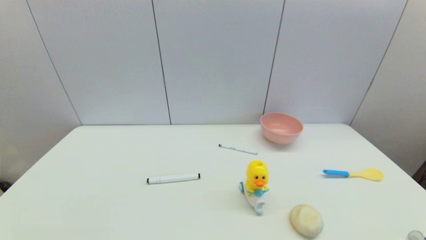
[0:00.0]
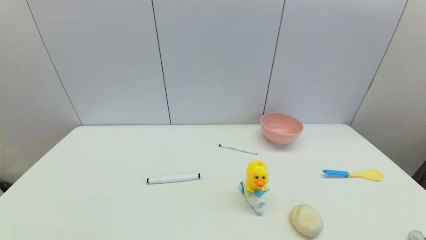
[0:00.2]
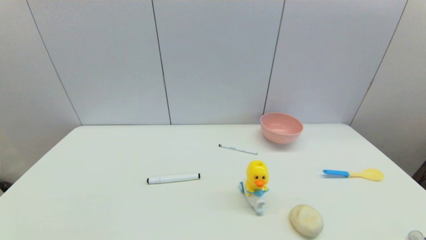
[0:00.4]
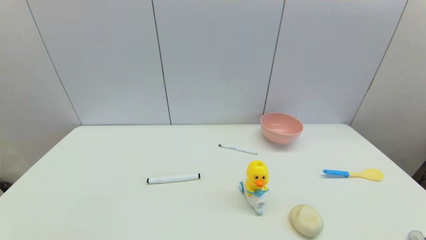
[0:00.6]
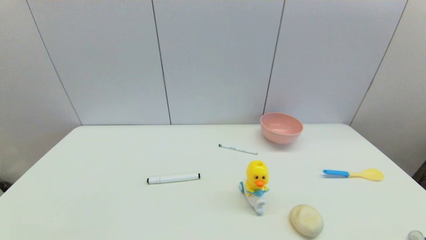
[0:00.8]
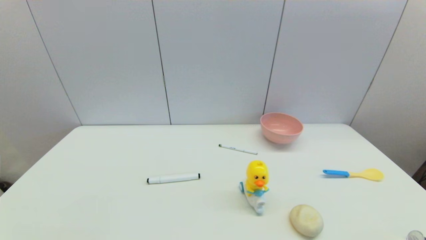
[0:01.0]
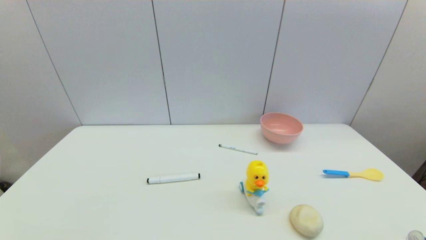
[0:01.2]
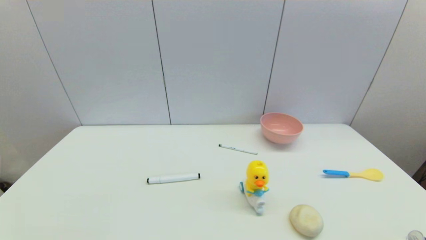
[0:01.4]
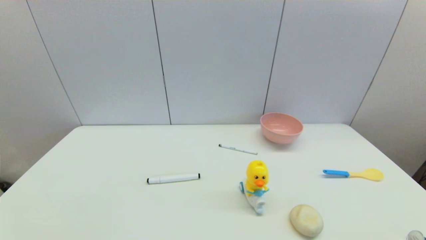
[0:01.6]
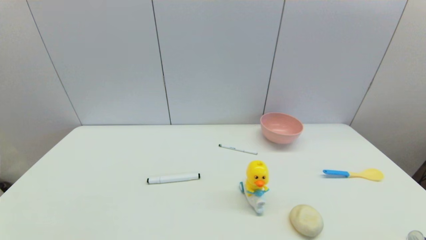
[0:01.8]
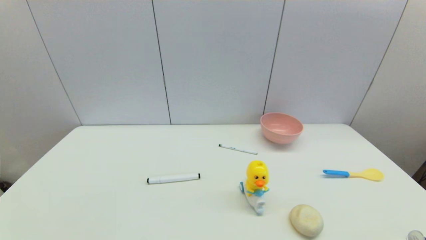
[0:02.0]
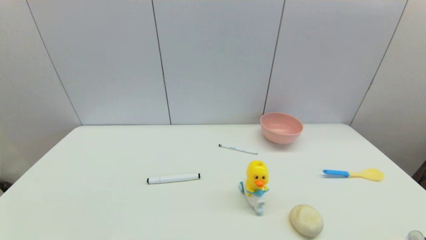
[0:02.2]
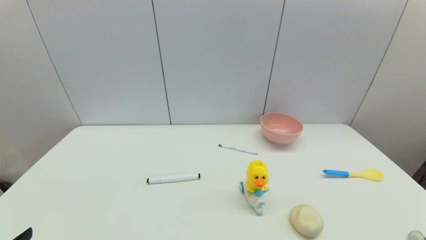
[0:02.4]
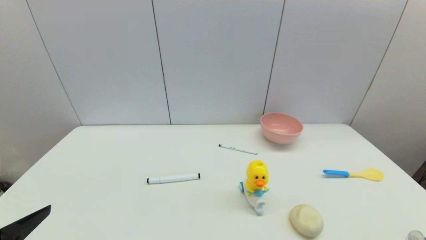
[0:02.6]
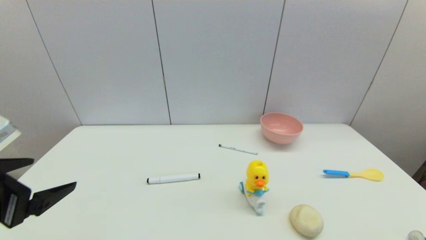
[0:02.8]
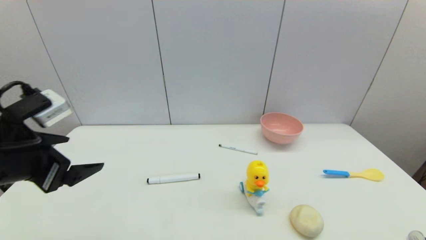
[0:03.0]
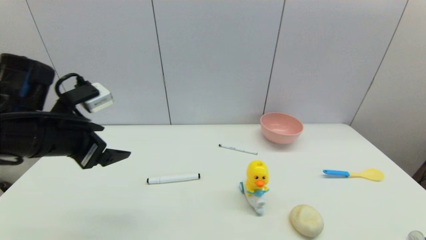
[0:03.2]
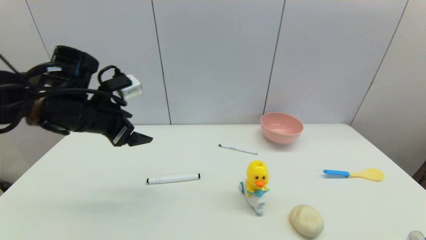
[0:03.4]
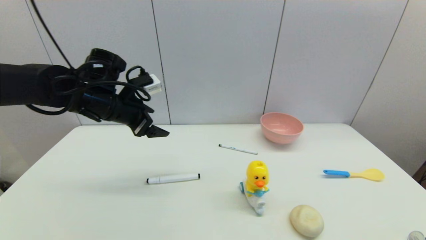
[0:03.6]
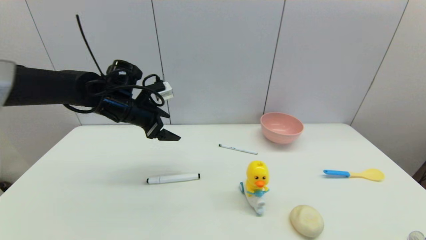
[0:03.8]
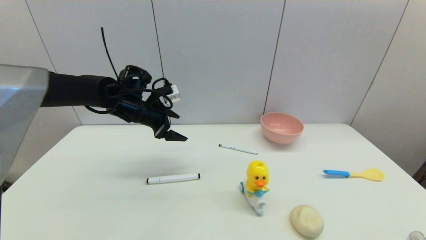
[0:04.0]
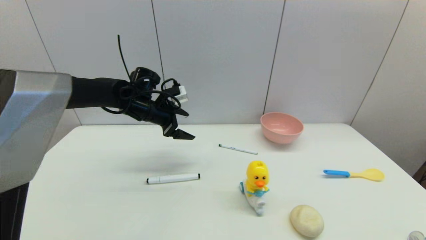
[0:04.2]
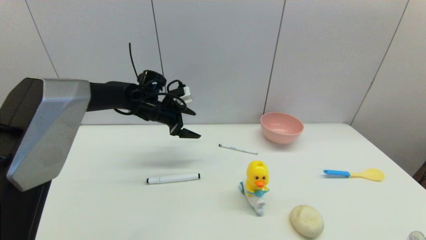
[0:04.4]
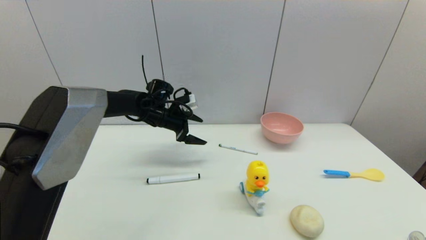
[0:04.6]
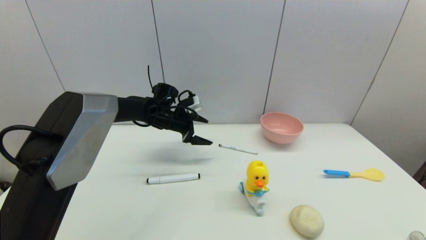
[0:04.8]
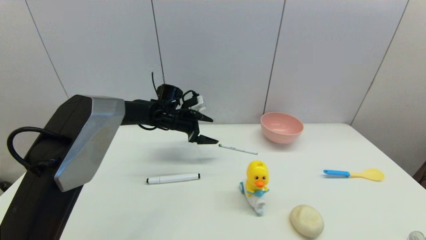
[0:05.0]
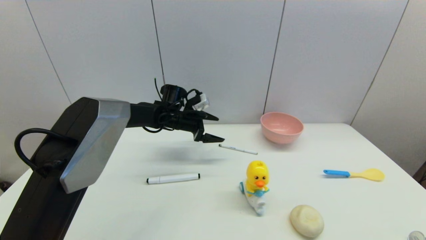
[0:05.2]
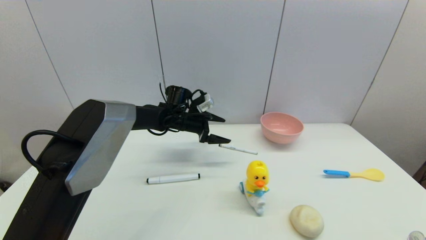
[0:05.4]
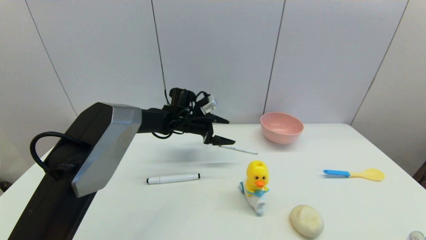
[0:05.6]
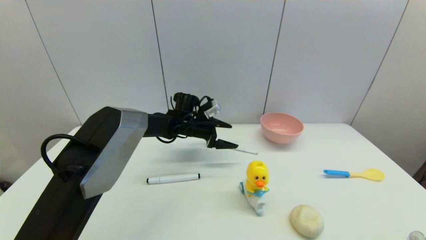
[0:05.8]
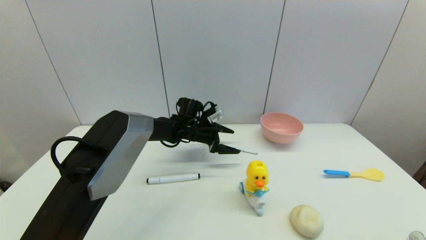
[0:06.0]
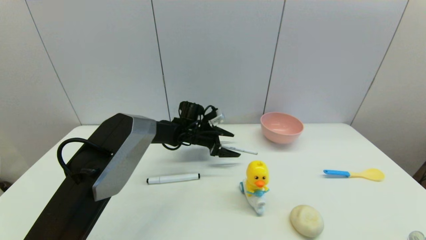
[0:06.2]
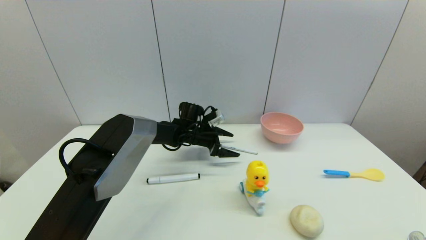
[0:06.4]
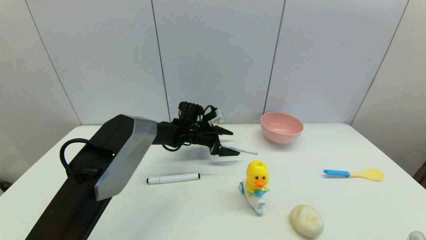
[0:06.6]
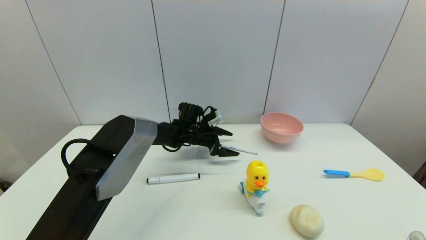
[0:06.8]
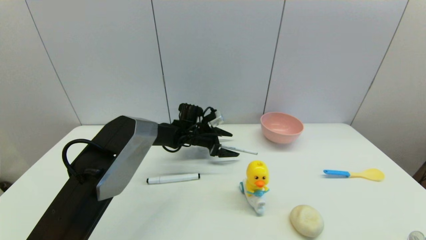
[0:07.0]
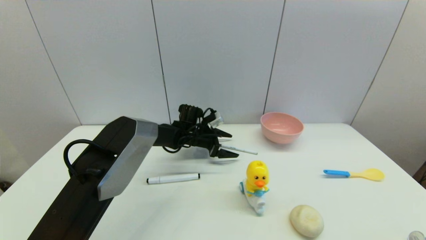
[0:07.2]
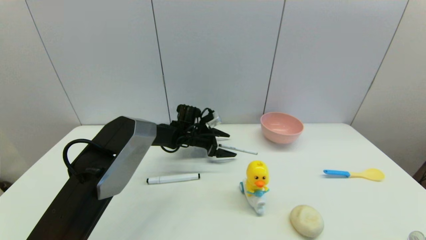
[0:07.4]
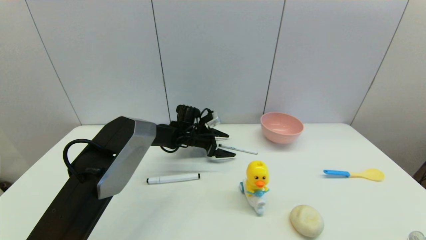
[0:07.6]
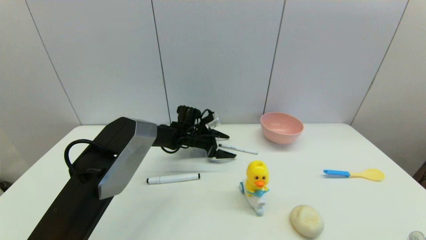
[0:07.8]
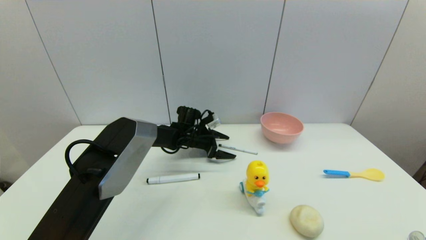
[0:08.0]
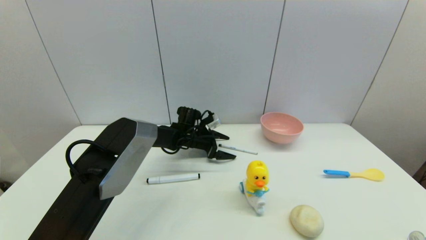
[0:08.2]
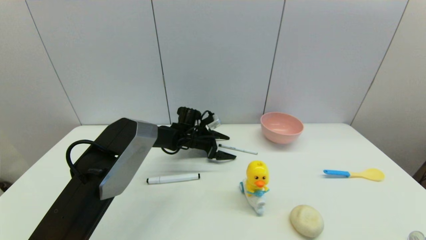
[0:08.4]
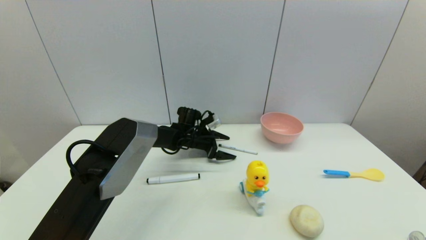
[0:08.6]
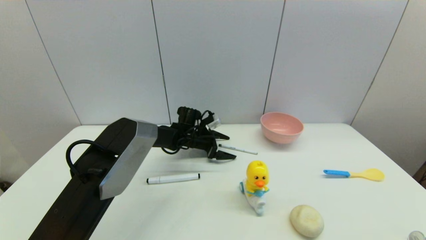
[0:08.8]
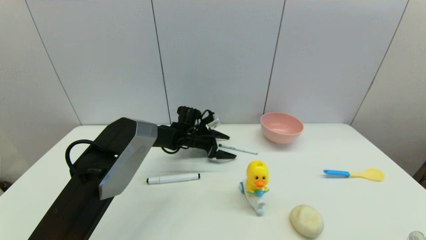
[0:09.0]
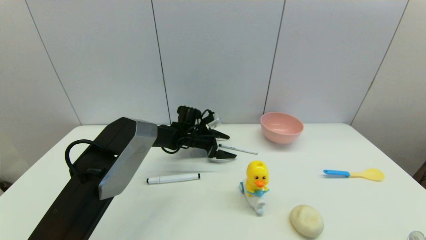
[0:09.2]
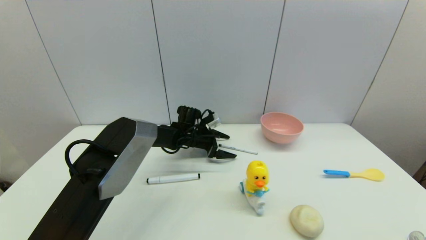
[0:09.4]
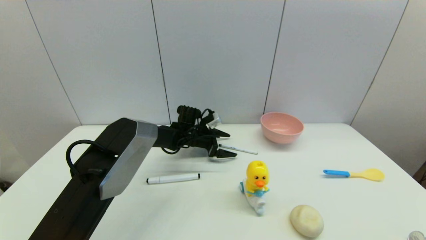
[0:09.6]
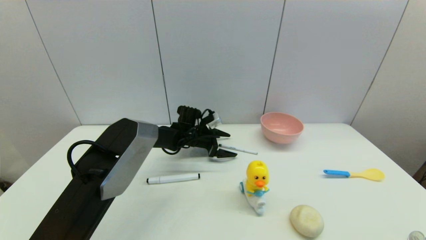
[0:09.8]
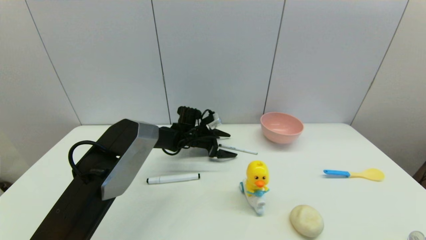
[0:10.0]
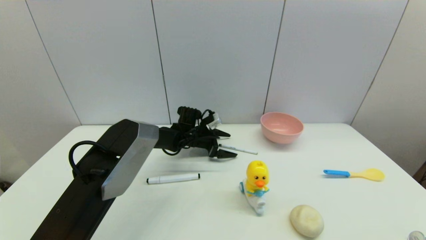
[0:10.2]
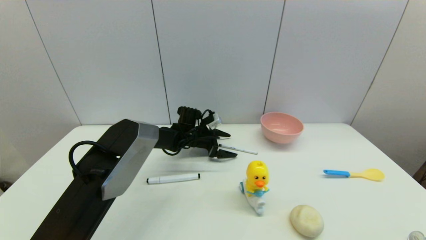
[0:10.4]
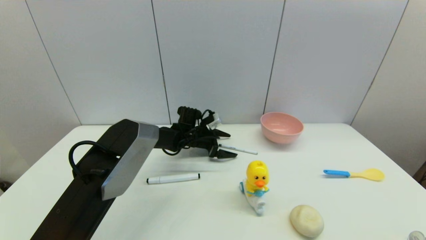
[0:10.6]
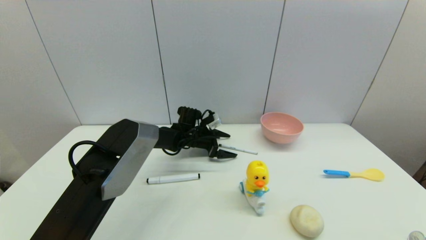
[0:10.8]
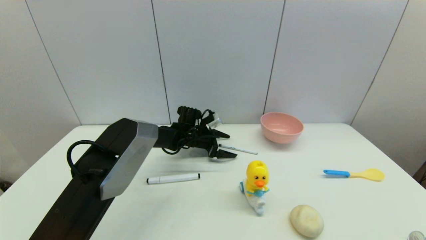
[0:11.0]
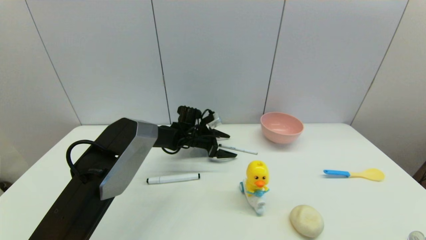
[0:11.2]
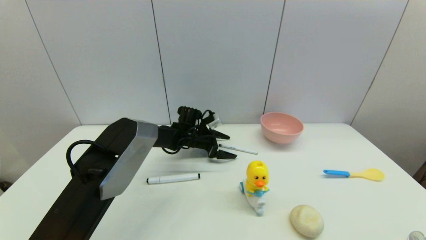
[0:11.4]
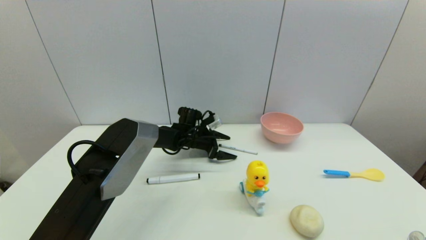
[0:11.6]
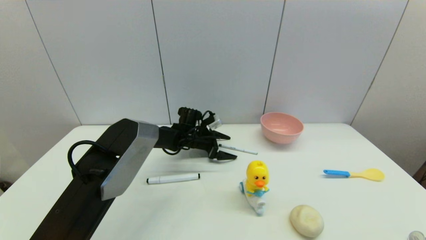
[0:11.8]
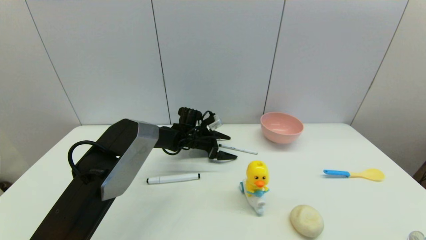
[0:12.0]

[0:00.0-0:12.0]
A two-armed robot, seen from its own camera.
Task of the whole recording: put the pen in the designated position.
0:00.0 to 0:01.6: Both grippers stay about where they are.
0:01.6 to 0:03.0: The left gripper heads forward and upward, covering about 25 cm.
0:03.0 to 0:04.4: The left gripper goes some 30 cm forward and to the right.
0:04.4 to 0:06.0: The left gripper travels to the right and downward by some 15 cm.
0:06.0 to 0:07.6: The grippers stay close to where they were, moving slightly.
0:07.6 to 0:12.0: Both grippers stay put.

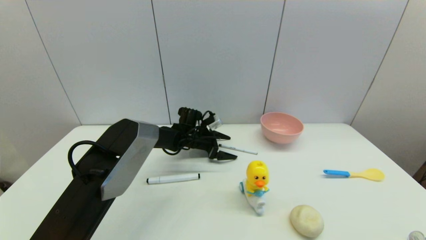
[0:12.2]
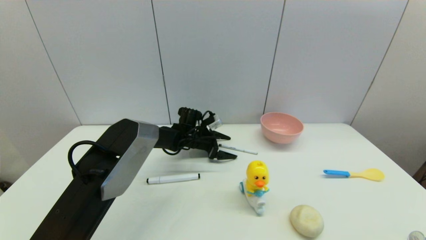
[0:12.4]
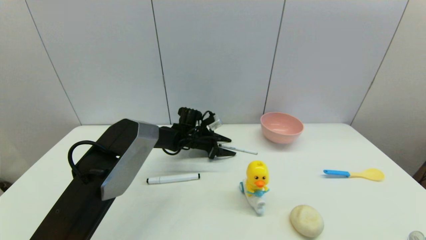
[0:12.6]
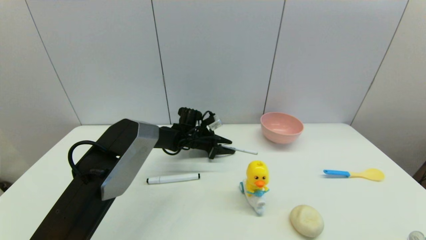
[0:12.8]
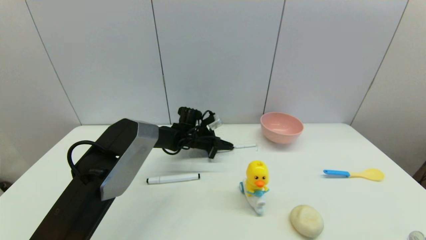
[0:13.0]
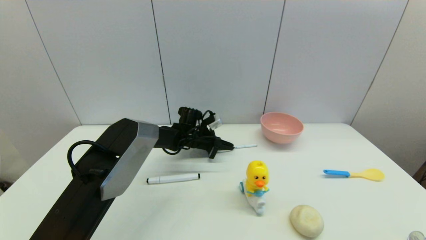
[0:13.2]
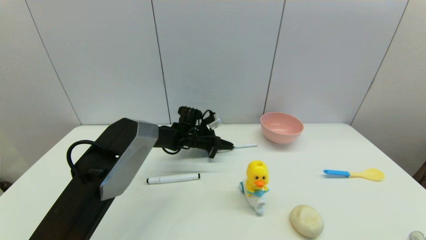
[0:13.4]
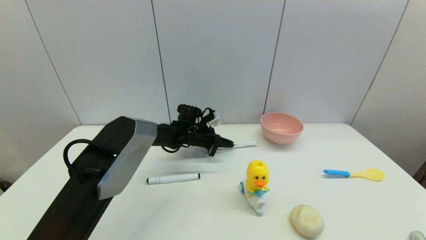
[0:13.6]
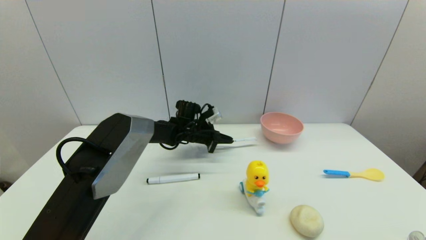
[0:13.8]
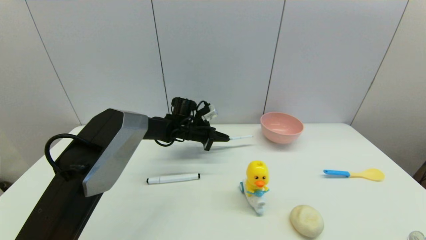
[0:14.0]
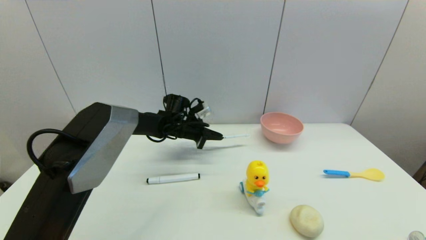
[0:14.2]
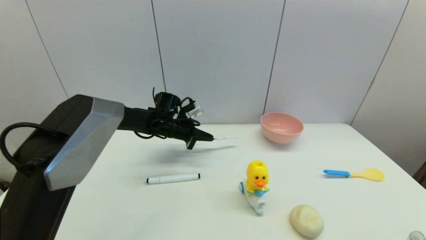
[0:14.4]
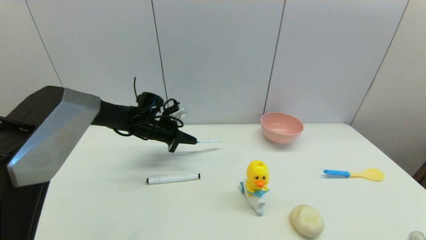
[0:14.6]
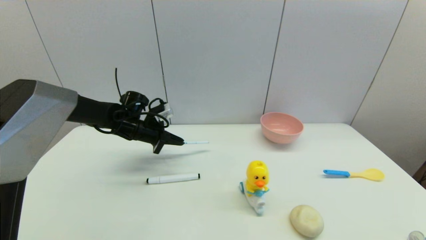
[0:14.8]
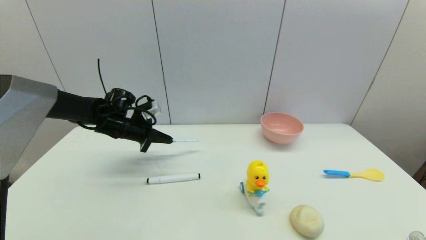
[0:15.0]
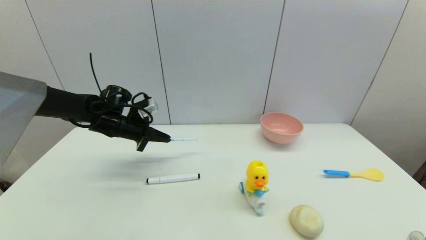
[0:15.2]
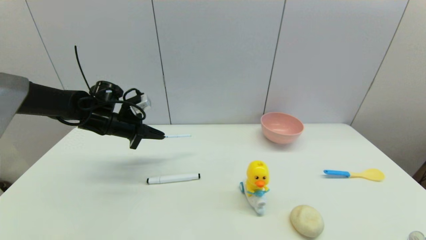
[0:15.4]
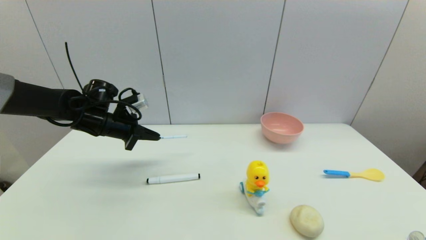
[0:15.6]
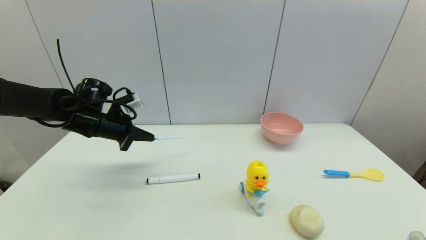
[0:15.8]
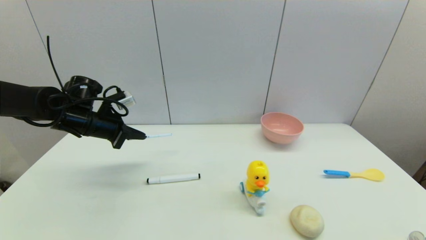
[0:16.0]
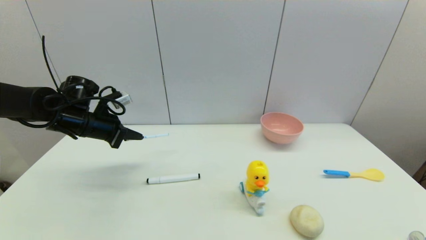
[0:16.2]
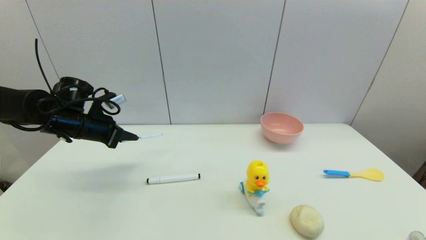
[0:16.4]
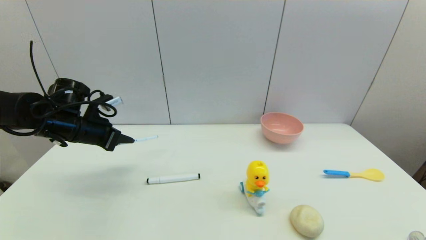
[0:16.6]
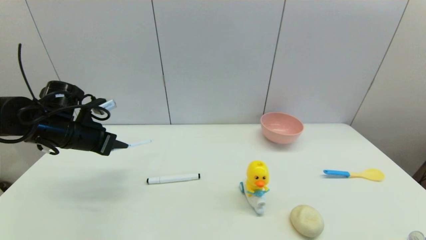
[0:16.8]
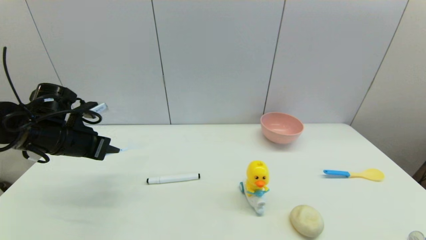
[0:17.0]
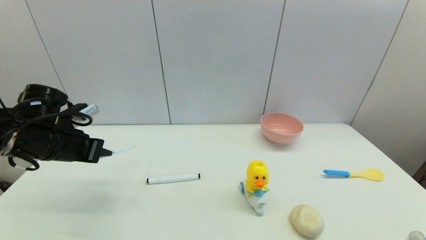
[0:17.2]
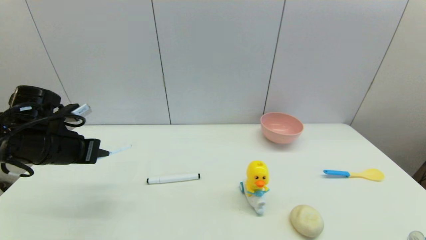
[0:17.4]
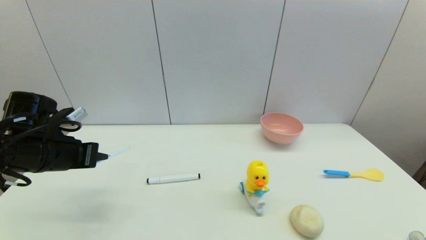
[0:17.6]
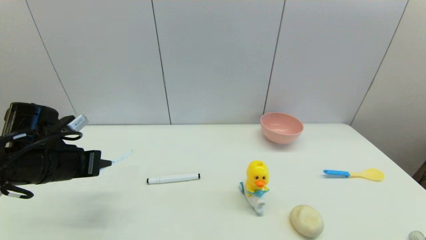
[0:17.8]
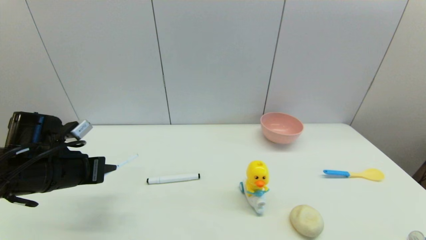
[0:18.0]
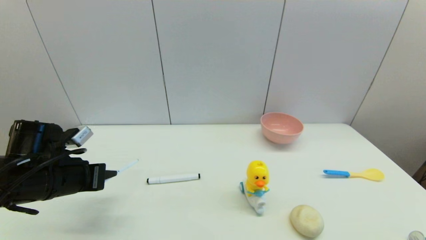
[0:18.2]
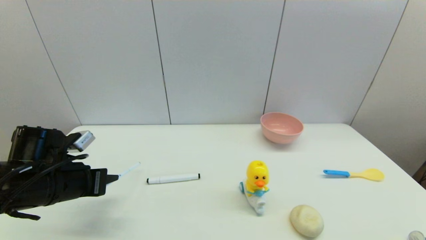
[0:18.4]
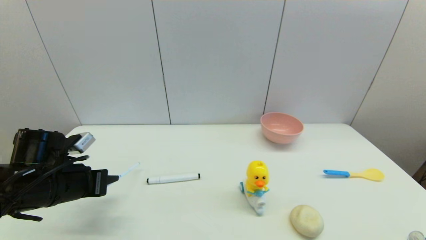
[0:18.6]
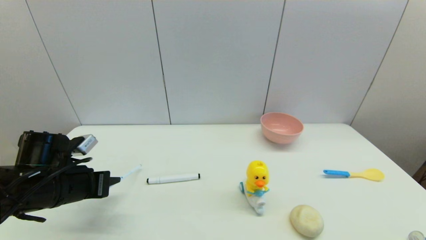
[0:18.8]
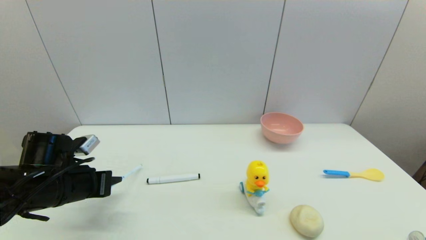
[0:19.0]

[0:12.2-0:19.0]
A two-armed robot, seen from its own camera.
Task of the whole recording: put the pen in the designated position.
0:12.2 to 0:13.6: The left gripper closes up.
0:13.6 to 0:15.0: The left gripper shifts about 20 cm to the left and upward.
0:15.0 to 0:16.2: The left gripper goes roughly 10 cm backward and to the left.
0:16.2 to 0:17.6: The left gripper travels backward by about 10 cm.
0:17.6 to 0:19.0: The left gripper shifts about 5 cm downward.
